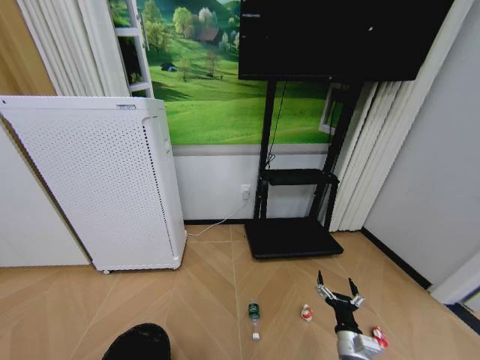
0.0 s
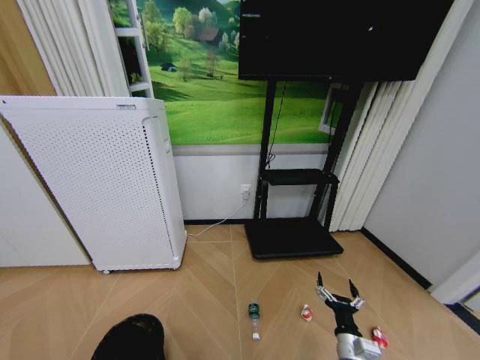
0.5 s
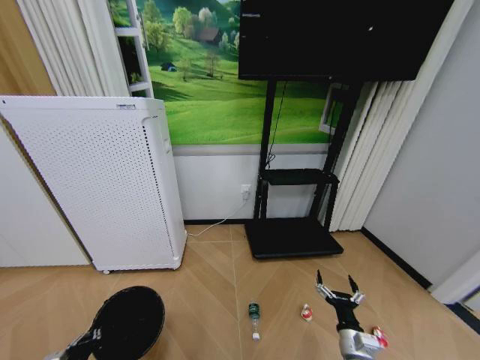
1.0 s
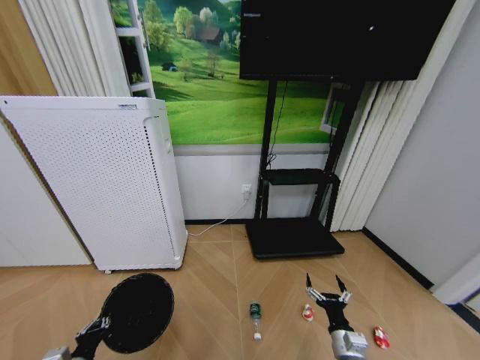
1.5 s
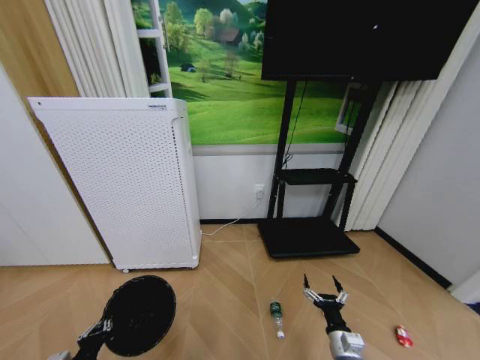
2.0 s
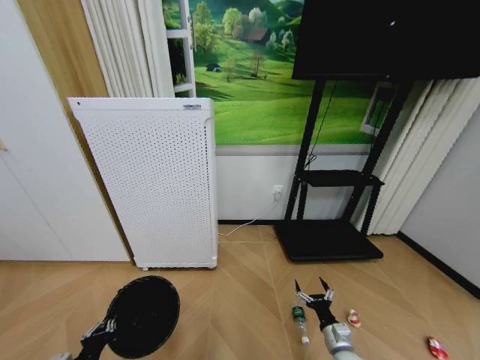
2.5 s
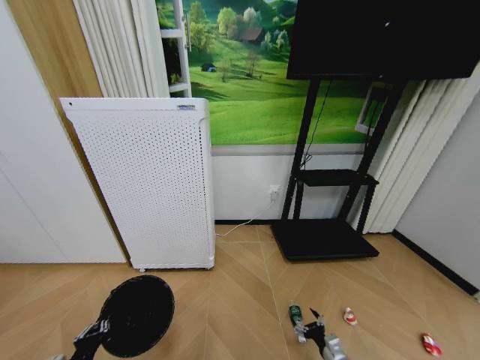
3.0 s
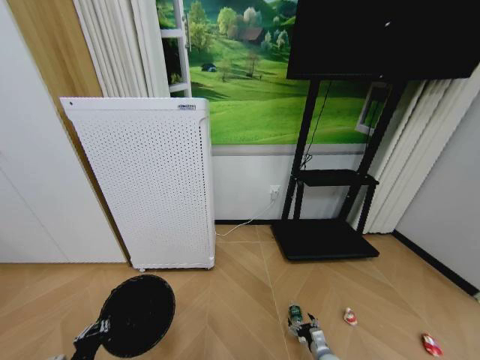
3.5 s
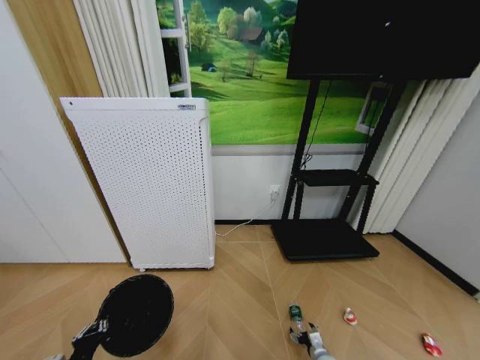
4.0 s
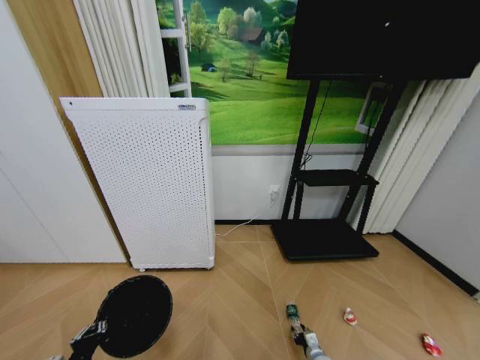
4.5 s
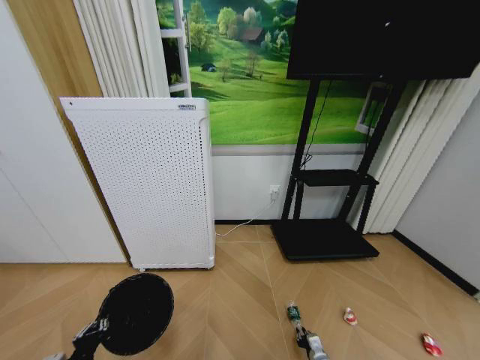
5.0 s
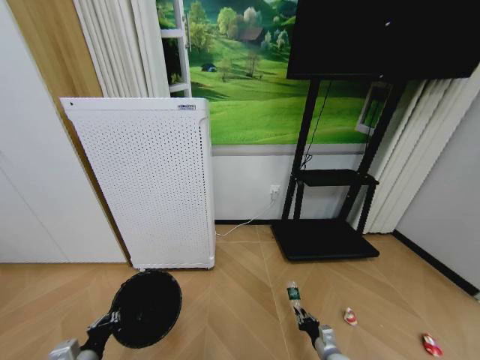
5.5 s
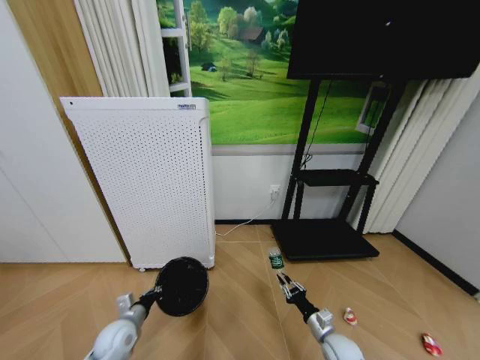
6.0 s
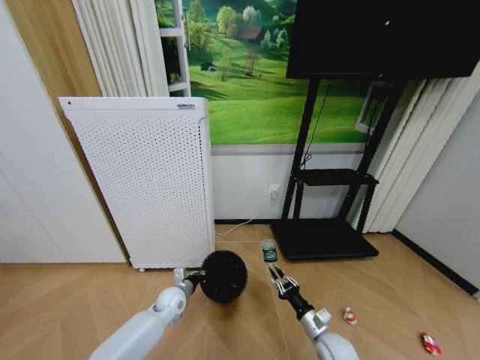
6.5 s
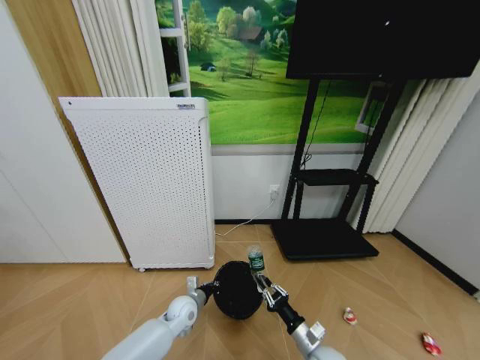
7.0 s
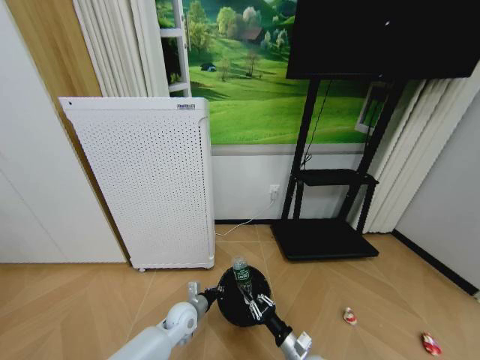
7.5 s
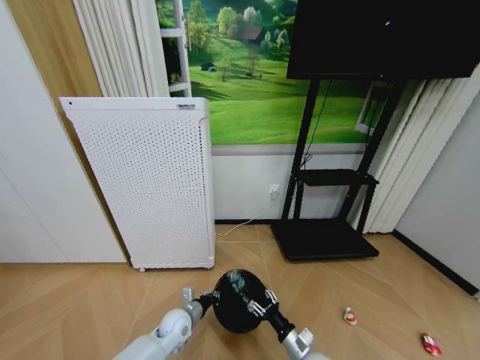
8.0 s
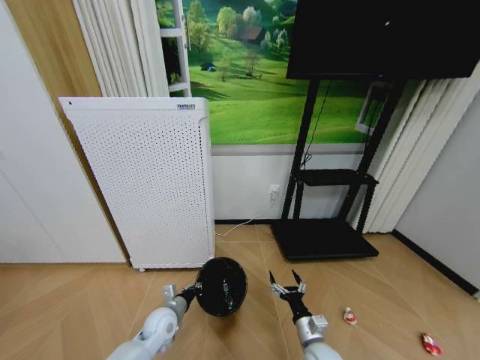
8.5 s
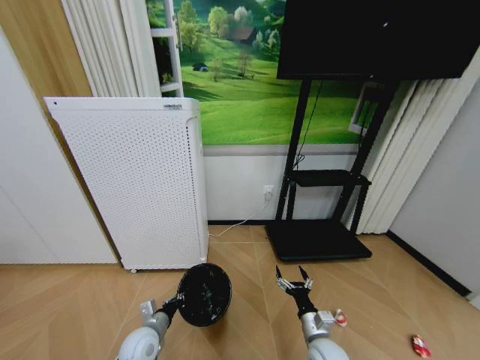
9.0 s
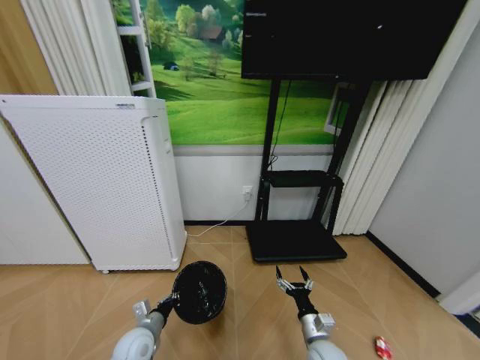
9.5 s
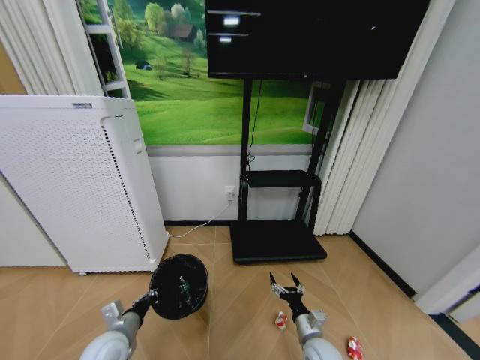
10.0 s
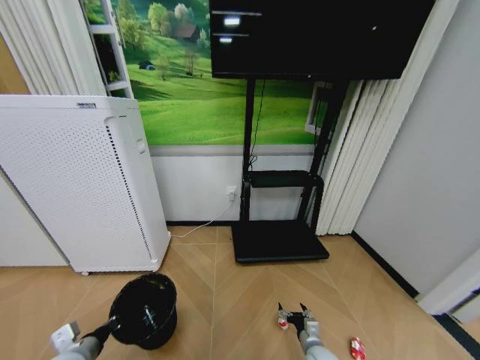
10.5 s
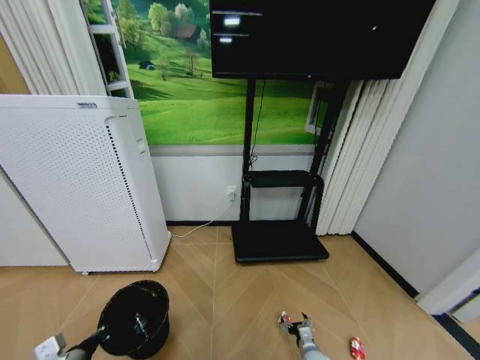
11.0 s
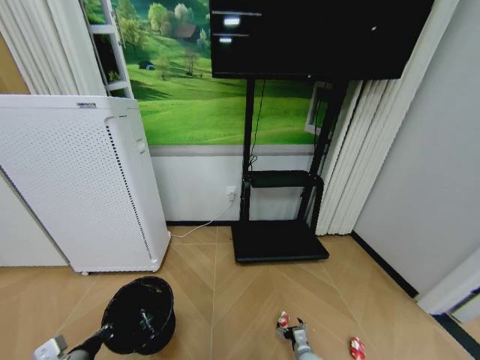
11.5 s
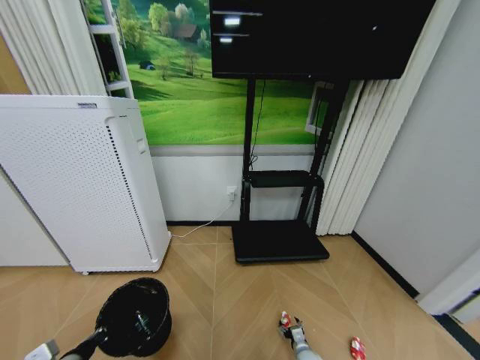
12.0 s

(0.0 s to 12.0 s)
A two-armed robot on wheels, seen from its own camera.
Task of the whole recording: Pick up the trash bin and place the garbage on the floor into it.
0.0 s - 2.0 s: The left gripper closes its fingers.
2.0 s - 4.0 s: The right gripper heads downward, covering about 20 cm.
4.0 s - 6.0 s: The left gripper heads forward, covering some 15 cm; the right gripper goes some 15 cm upward, and closes.
6.0 s - 8.0 s: The right gripper moves to the left, approximately 10 cm, and opens up. Meanwhile the left gripper shifts about 15 cm to the right.
8.0 s - 10.0 s: The right gripper opens up, while the left gripper shifts approximately 20 cm to the left, upward and backward.
10.0 s - 12.0 s: The right gripper heads downward, covering about 20 cm. Meanwhile the left gripper travels backward and to the left by some 10 cm.

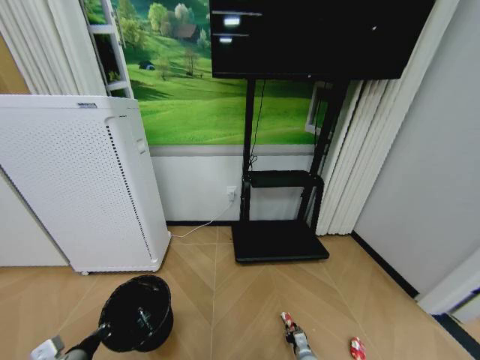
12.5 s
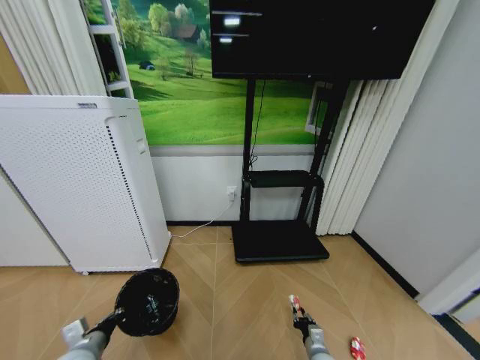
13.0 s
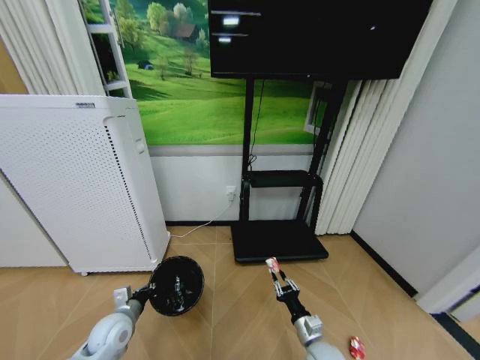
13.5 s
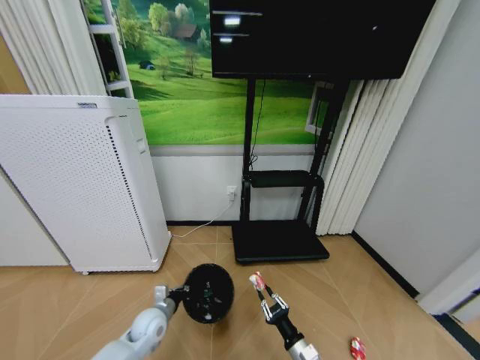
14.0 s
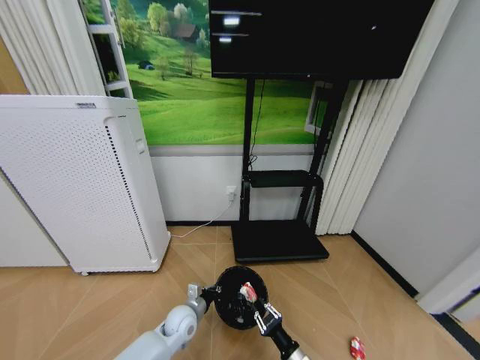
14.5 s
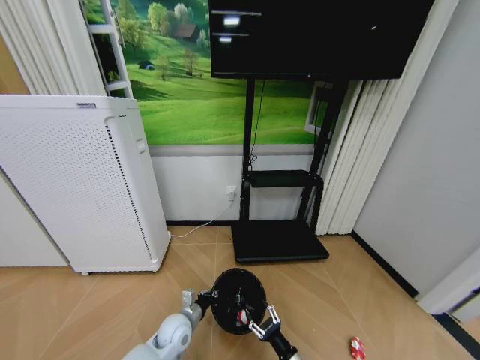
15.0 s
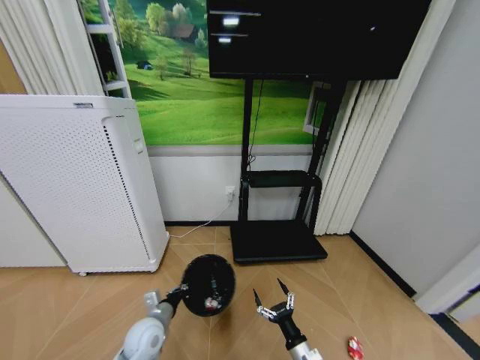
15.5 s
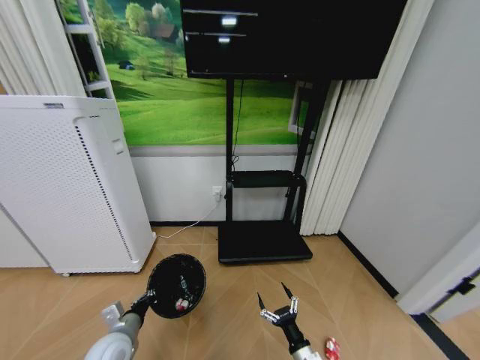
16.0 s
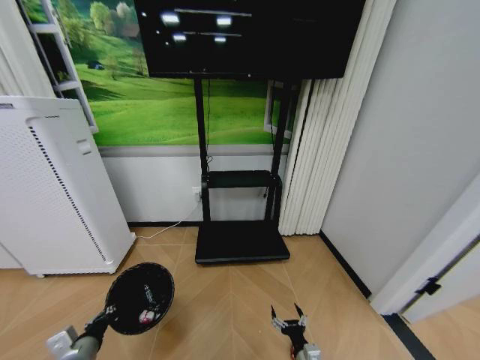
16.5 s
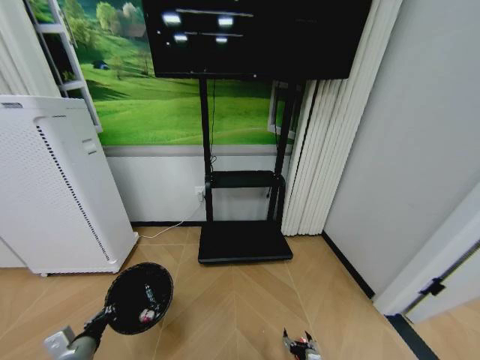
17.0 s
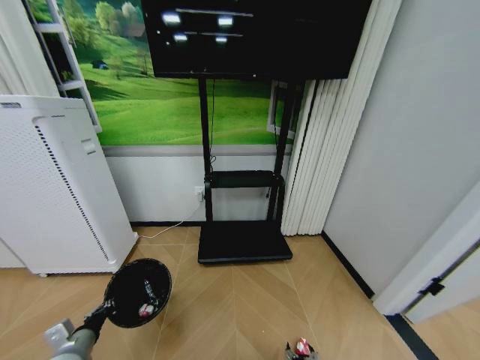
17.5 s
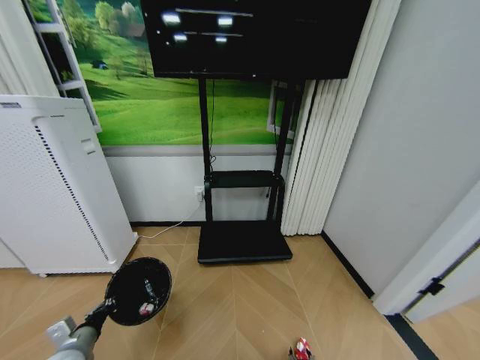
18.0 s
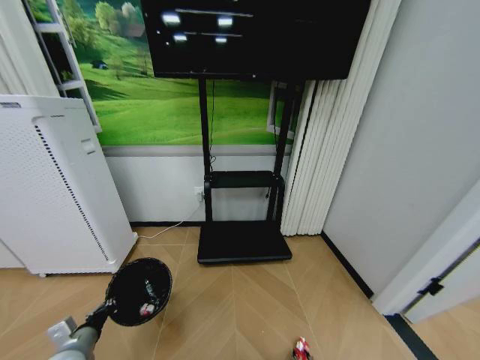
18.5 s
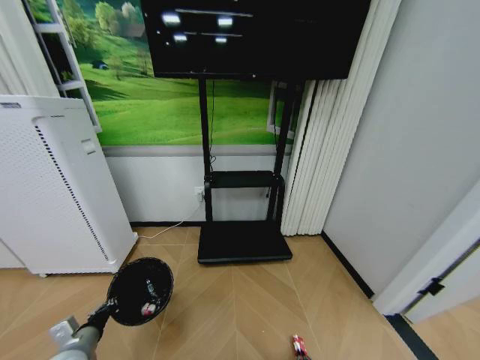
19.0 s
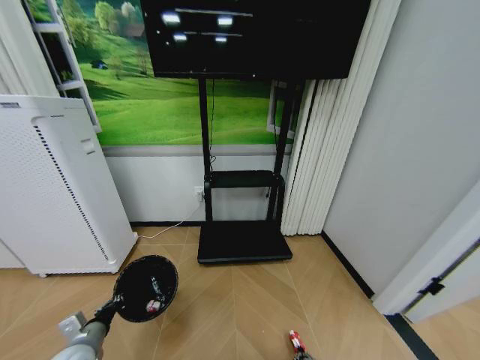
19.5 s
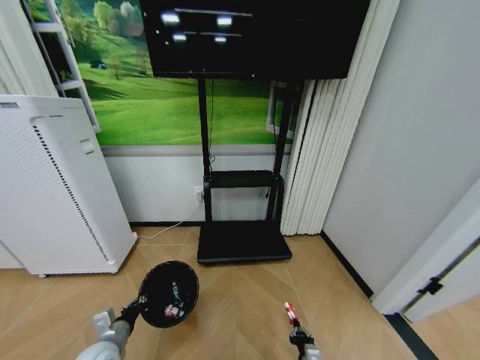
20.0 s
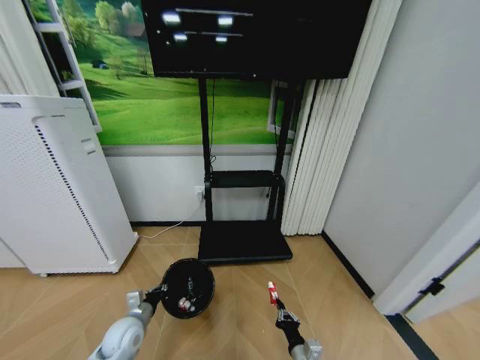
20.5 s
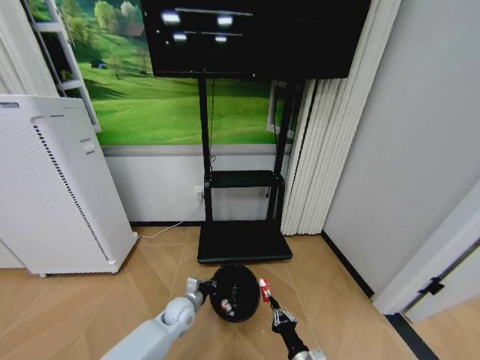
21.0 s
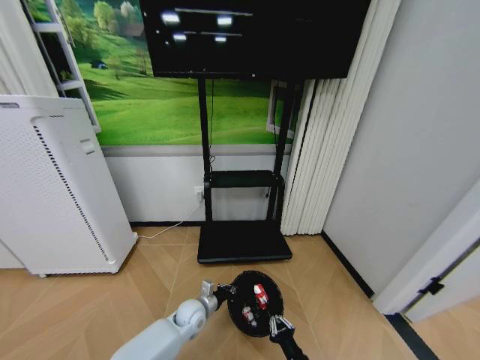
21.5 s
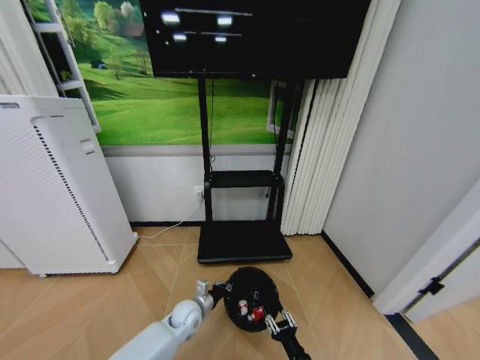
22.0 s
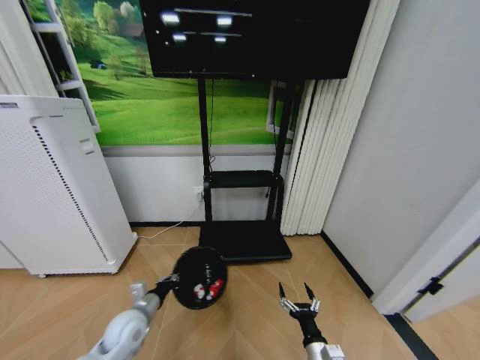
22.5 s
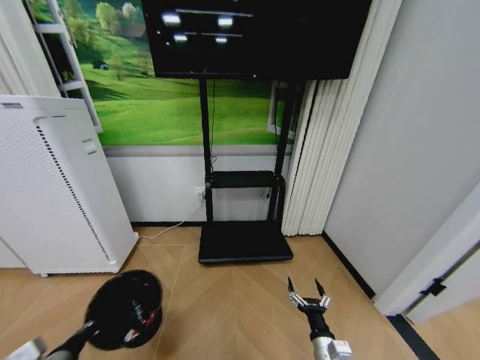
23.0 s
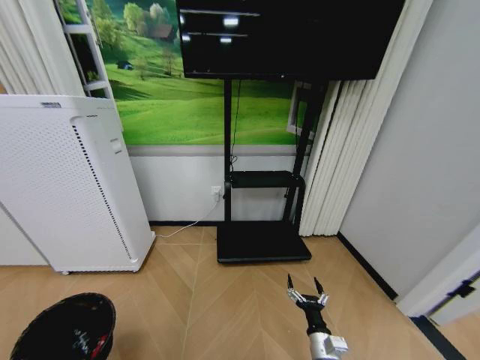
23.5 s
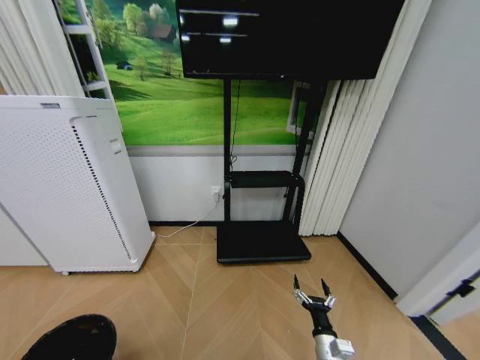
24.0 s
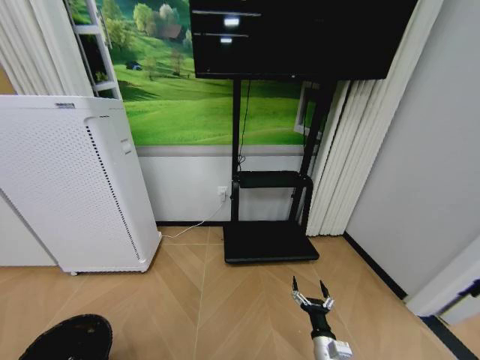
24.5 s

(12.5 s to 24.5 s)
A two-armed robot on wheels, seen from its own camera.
Task of the whole recording: Pick up the trash bin and place the garbage on the floor into it.
12.5 s - 14.5 s: The left gripper moves to the right, forward and downward, approximately 30 cm; the right gripper shifts approximately 20 cm upward and backward.
14.5 s - 16.5 s: The left gripper goes approximately 25 cm to the left and backward, while the right gripper opens.
16.5 s - 18.5 s: The right gripper travels downward by some 10 cm, and closes.
18.5 s - 20.5 s: The left gripper travels to the right and forward by some 15 cm. Meanwhile the right gripper shifts approximately 15 cm upward, and closes its fingers.
20.5 s - 22.5 s: The left gripper travels to the right and back again, some 15 cm each way. The right gripper opens up.
22.5 s - 24.5 s: The left gripper heads backward and to the left, covering roughly 30 cm.

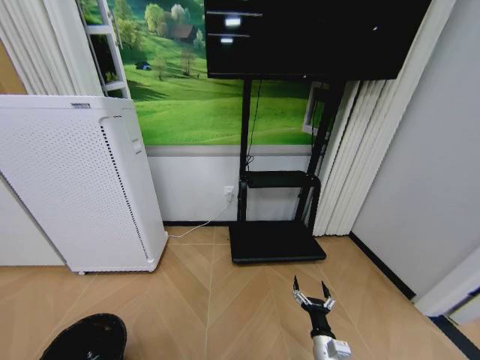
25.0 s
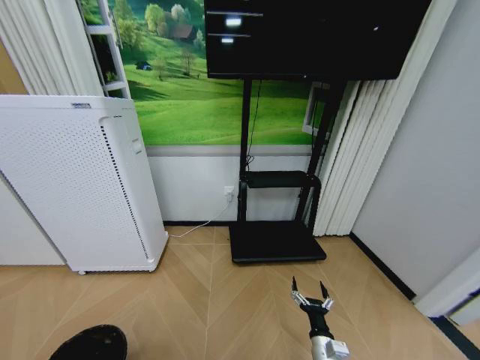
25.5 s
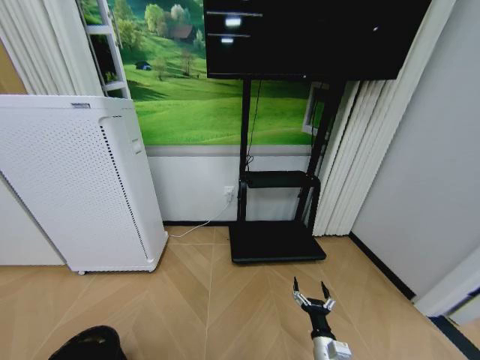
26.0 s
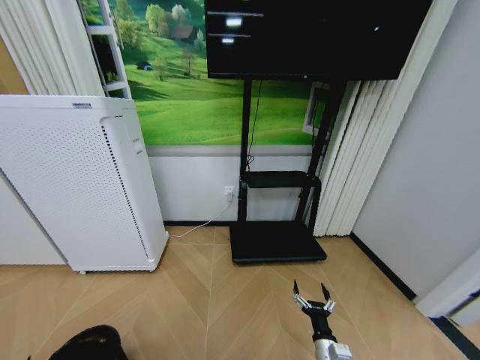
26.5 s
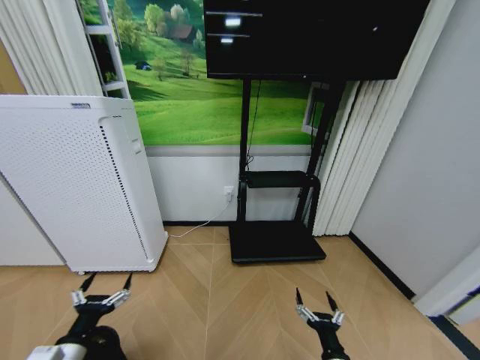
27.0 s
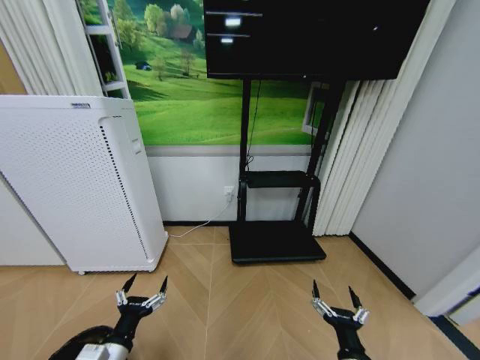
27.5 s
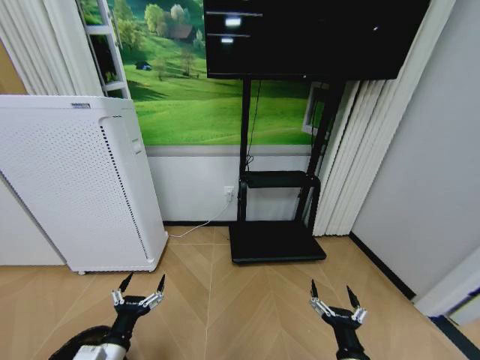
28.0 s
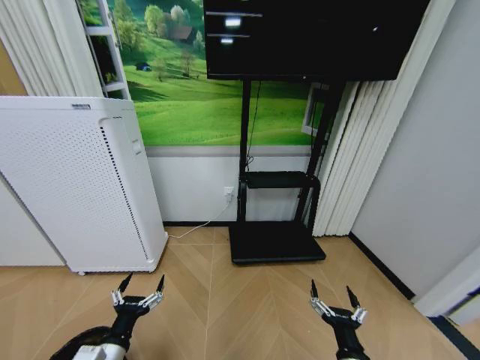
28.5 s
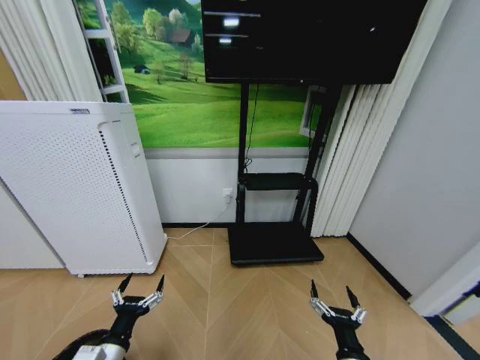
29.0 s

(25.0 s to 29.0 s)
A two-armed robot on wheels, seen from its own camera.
Task of the whole recording: Pick up the trash bin and place the garbage on the floor into it.
25.0 s - 27.0 s: The right gripper heads backward, covering roughly 5 cm, while the left gripper travels to the right, upward and forward by roughly 15 cm, and opens up.
27.0 s - 29.0 s: The left gripper is displaced to the right by about 10 cm. The right gripper goes approximately 5 cm upward.
